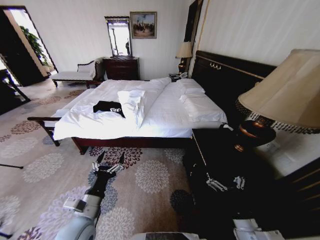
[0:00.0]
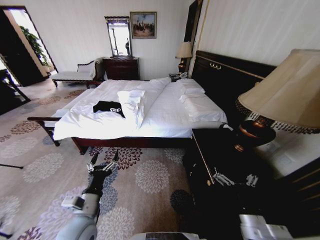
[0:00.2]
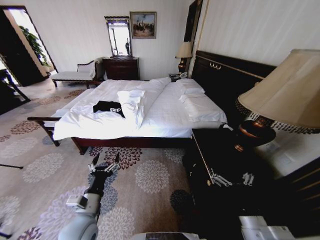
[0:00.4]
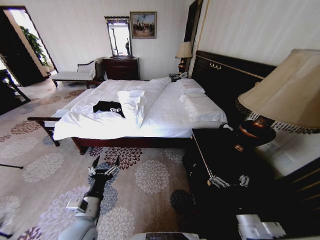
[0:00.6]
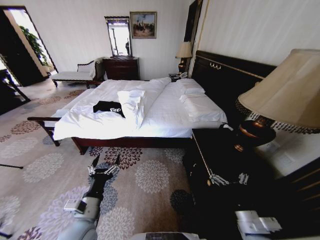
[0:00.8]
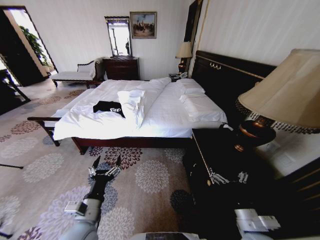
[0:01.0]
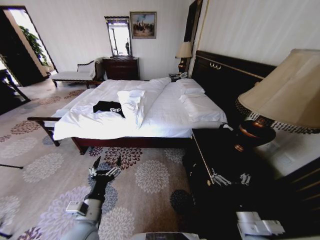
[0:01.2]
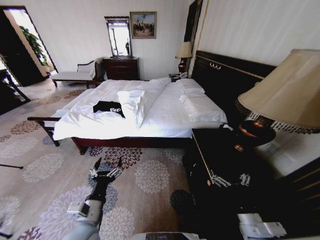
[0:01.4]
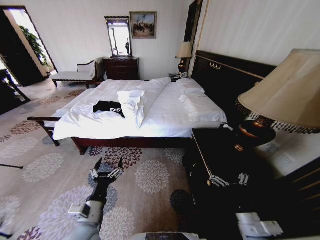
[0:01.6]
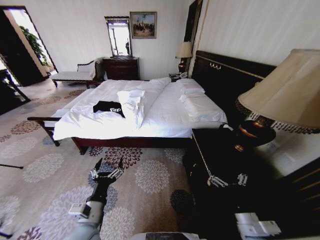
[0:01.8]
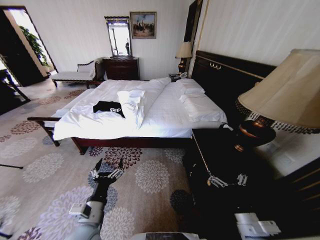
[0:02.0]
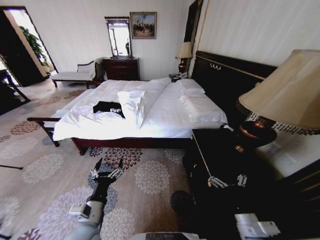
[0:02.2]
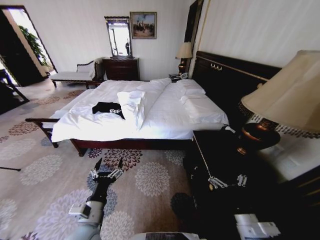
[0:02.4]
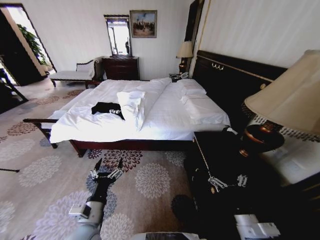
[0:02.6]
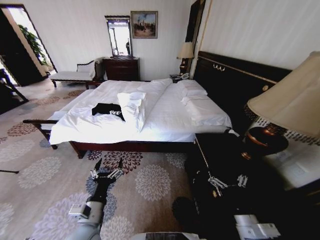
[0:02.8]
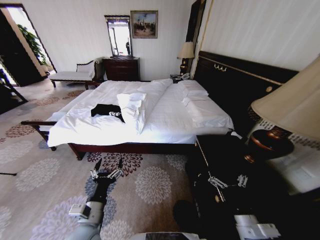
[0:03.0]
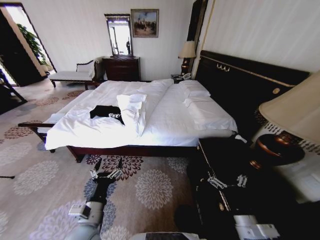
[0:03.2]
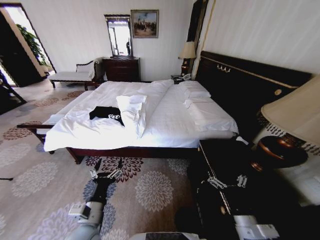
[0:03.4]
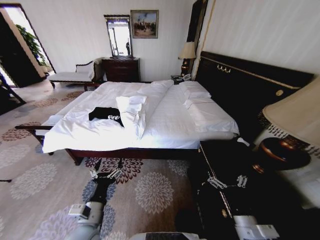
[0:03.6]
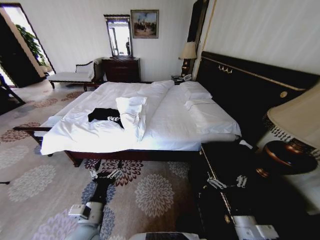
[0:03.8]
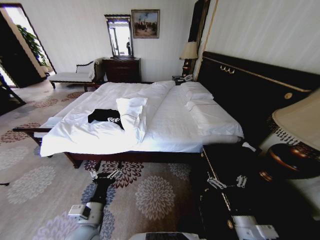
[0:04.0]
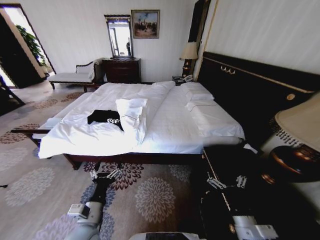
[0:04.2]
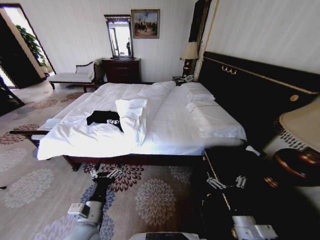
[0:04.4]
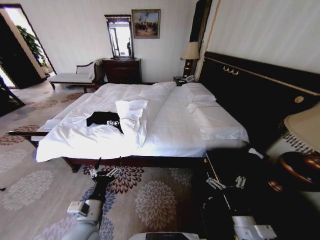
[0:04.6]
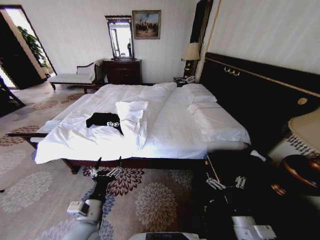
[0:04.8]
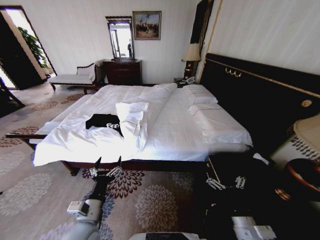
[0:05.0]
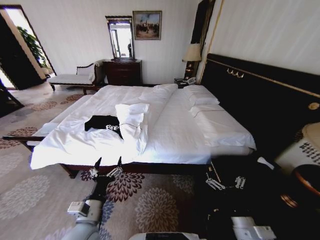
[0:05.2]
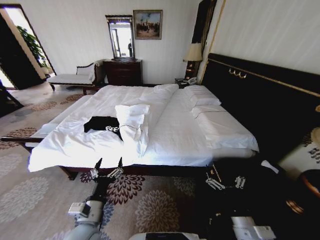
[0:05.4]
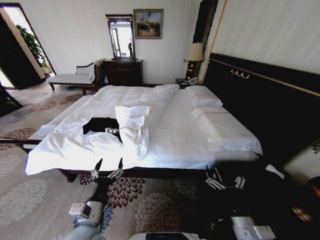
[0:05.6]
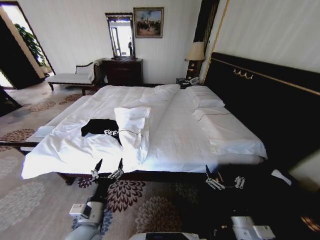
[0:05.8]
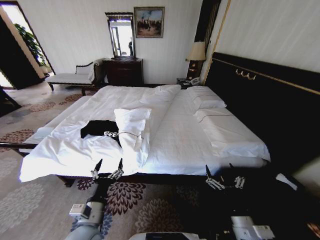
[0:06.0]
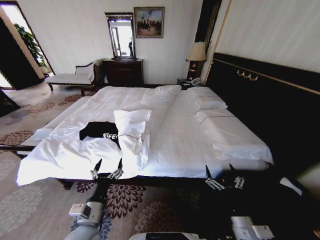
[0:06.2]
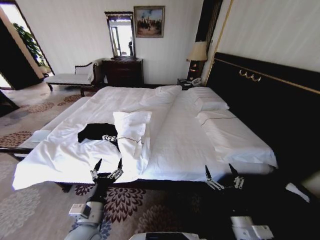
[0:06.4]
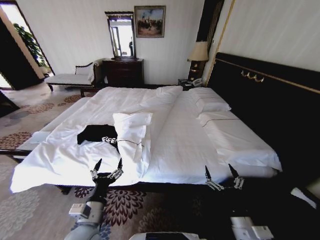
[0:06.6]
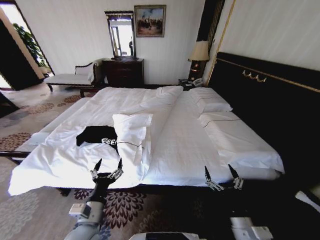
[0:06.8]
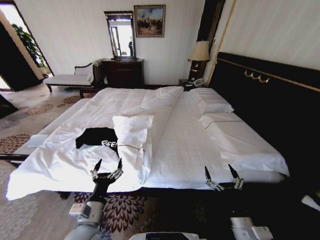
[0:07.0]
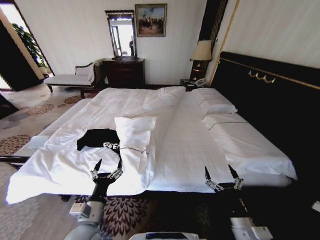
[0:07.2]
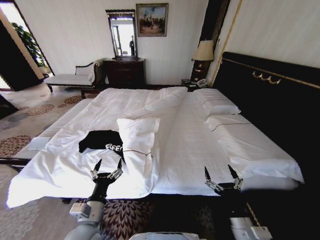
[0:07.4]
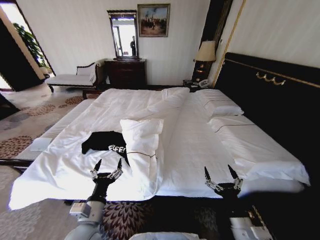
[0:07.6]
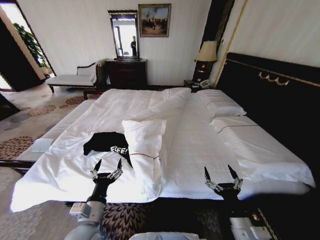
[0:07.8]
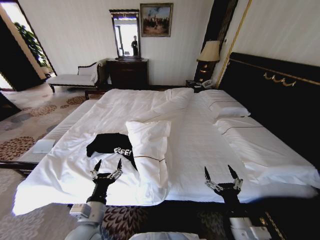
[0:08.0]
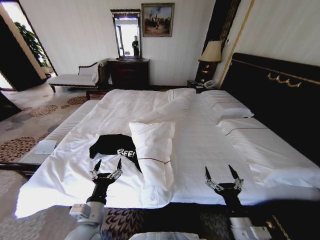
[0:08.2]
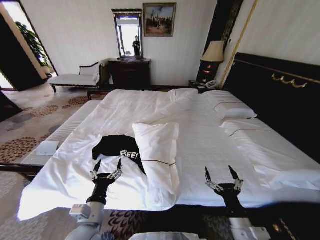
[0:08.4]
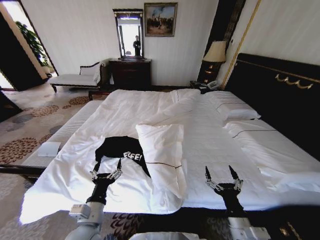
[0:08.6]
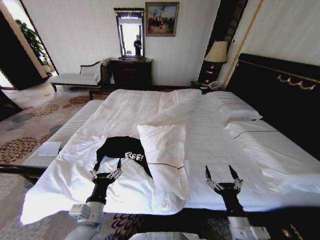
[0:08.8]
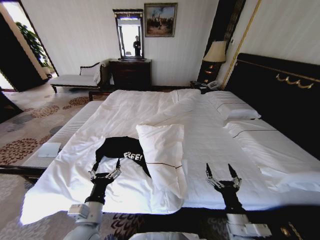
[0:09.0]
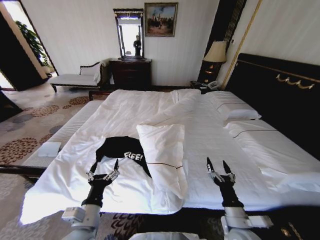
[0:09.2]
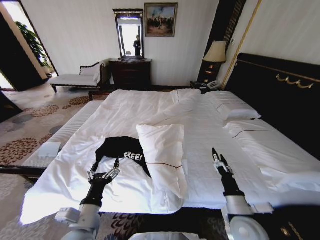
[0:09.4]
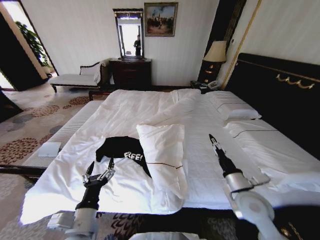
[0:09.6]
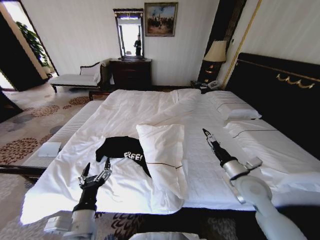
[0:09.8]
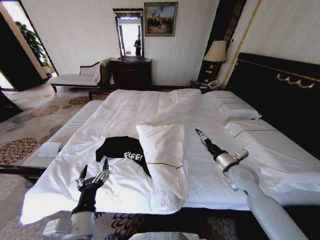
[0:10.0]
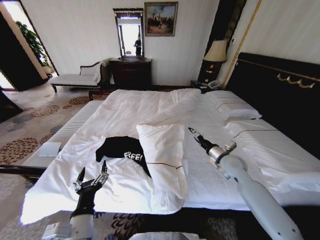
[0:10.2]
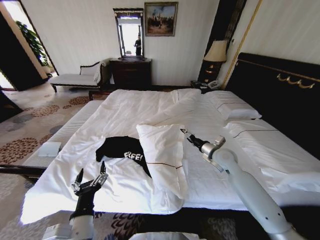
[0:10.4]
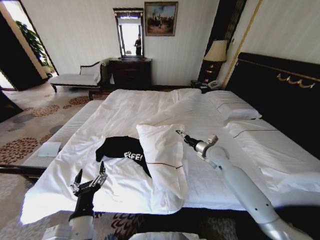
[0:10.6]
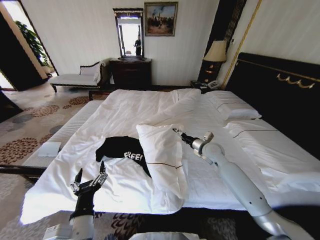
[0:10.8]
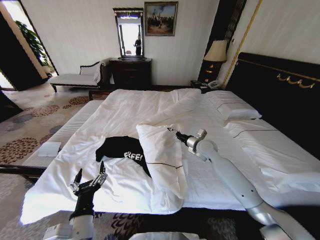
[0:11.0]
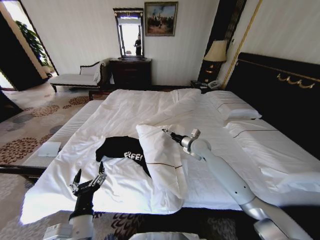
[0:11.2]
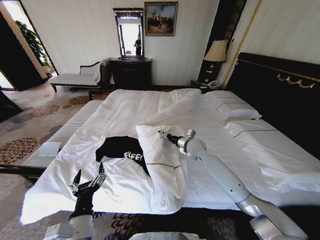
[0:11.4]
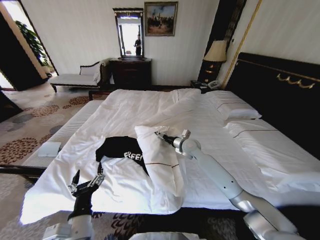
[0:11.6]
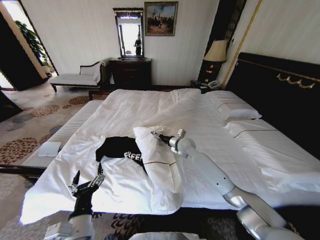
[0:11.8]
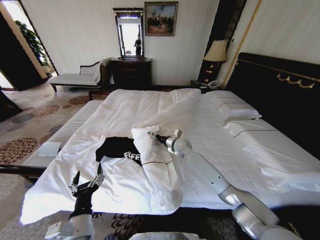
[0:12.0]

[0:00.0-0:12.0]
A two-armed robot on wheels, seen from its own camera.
Task of the whole recording: Fold the clothes on the bed.
0:09.0 to 0:10.4: The right gripper is displaced forward by some 30 cm.
0:10.4 to 0:12.0: The right gripper goes about 20 cm to the left and forward.

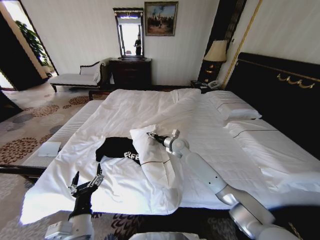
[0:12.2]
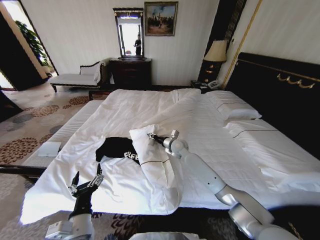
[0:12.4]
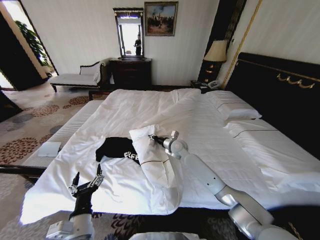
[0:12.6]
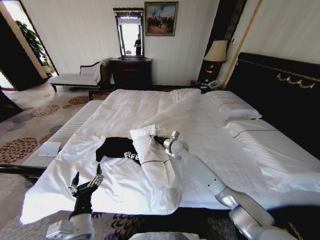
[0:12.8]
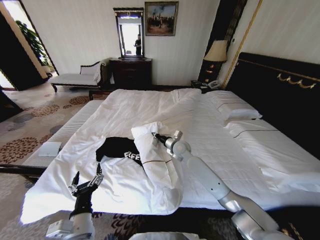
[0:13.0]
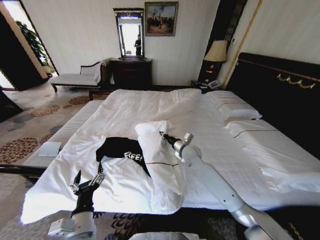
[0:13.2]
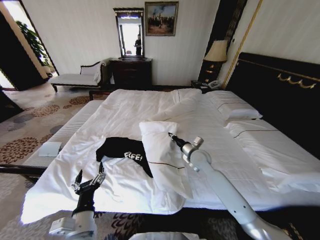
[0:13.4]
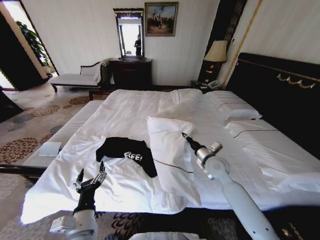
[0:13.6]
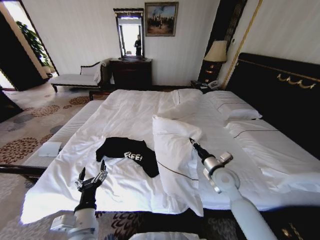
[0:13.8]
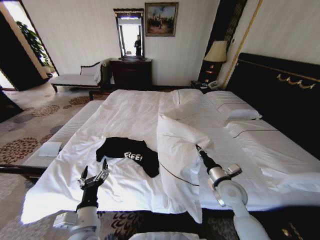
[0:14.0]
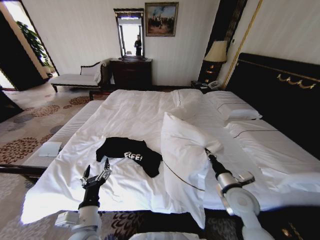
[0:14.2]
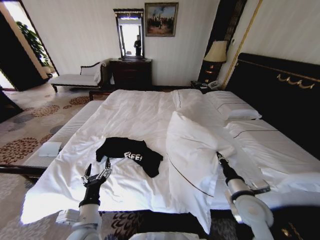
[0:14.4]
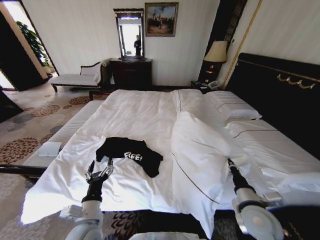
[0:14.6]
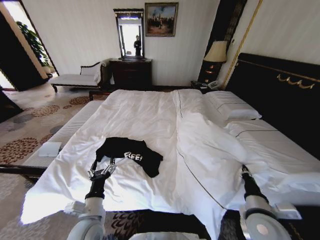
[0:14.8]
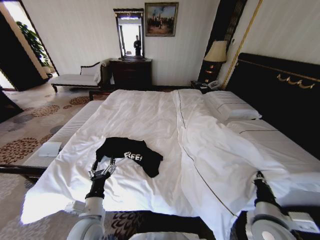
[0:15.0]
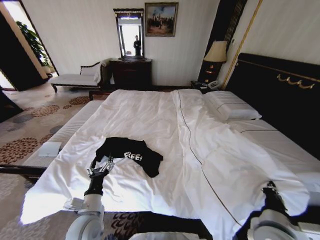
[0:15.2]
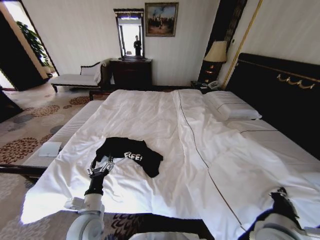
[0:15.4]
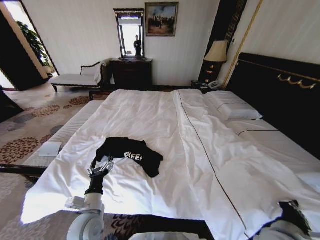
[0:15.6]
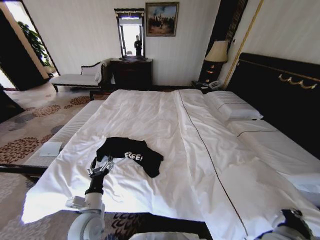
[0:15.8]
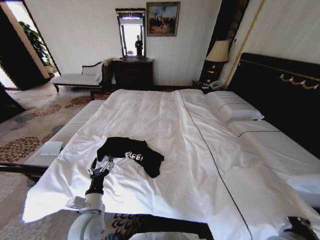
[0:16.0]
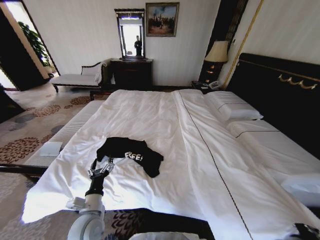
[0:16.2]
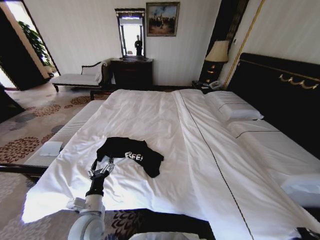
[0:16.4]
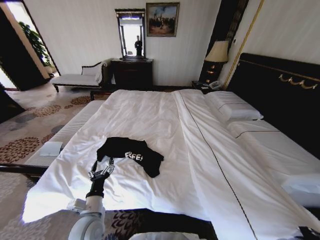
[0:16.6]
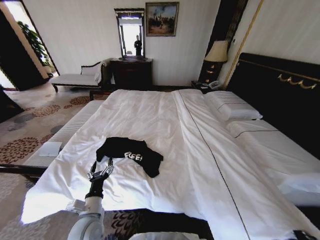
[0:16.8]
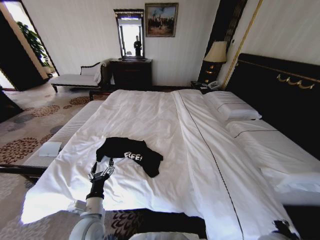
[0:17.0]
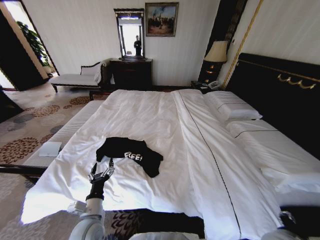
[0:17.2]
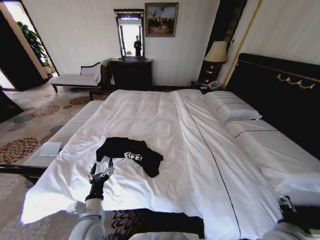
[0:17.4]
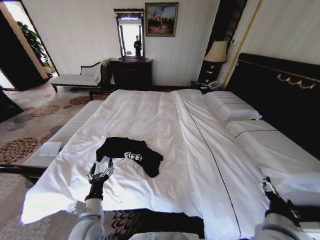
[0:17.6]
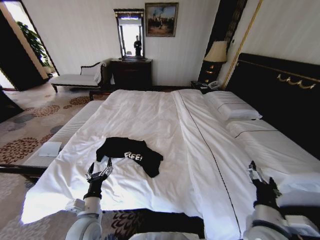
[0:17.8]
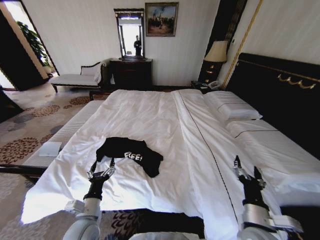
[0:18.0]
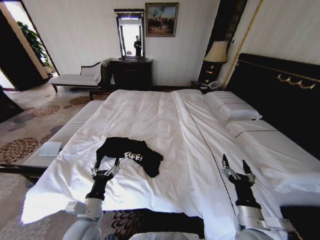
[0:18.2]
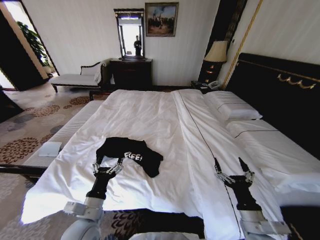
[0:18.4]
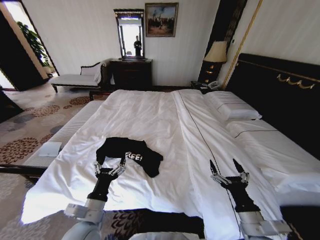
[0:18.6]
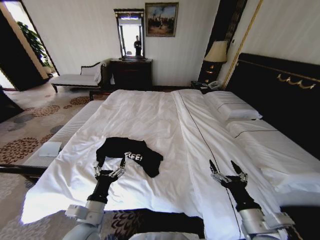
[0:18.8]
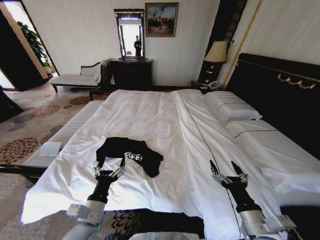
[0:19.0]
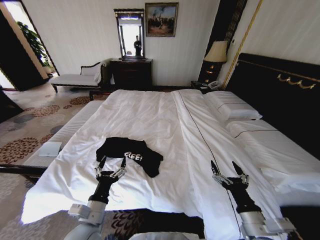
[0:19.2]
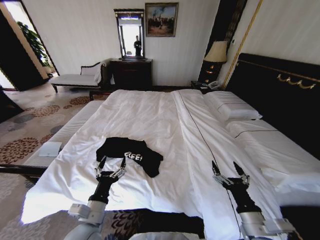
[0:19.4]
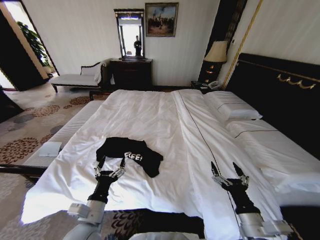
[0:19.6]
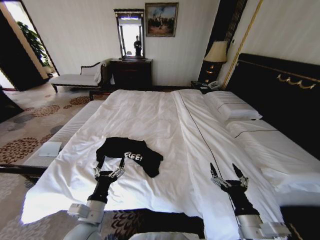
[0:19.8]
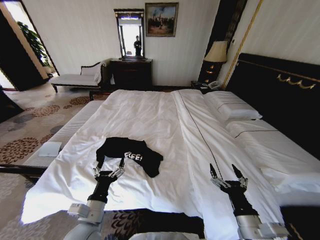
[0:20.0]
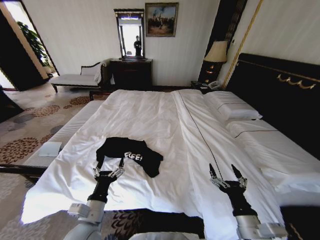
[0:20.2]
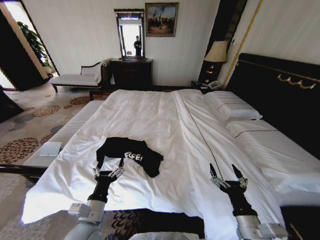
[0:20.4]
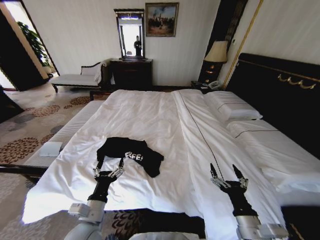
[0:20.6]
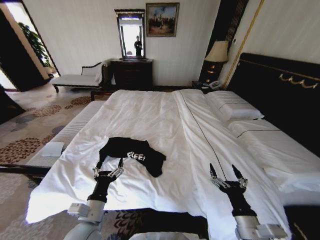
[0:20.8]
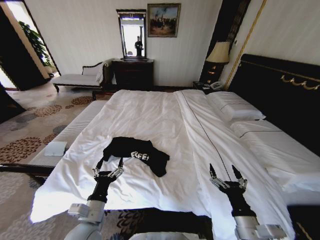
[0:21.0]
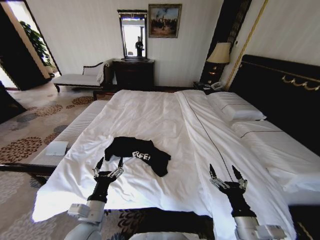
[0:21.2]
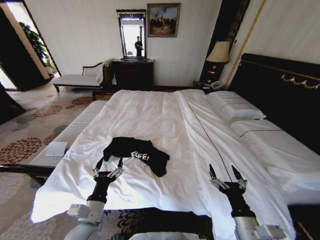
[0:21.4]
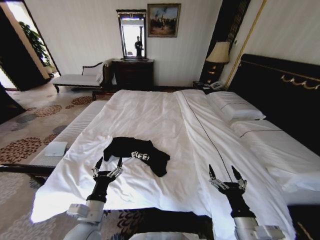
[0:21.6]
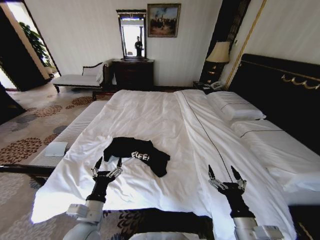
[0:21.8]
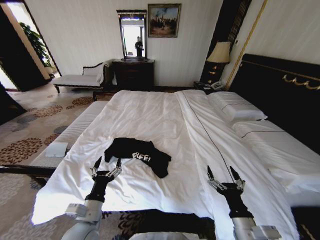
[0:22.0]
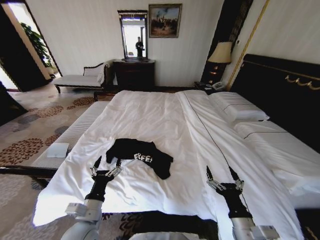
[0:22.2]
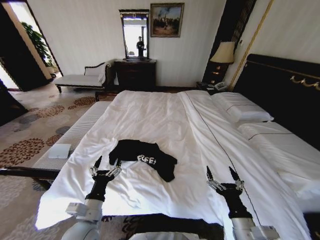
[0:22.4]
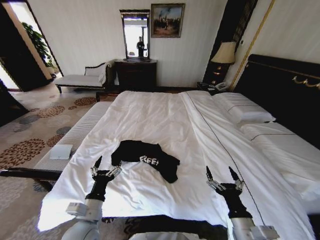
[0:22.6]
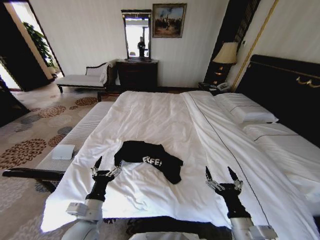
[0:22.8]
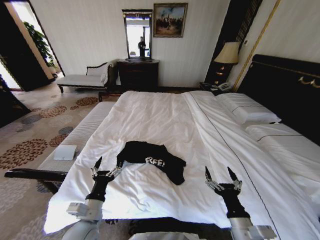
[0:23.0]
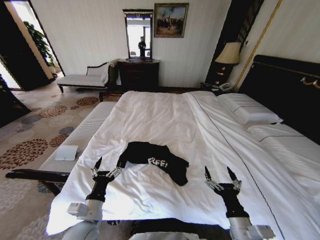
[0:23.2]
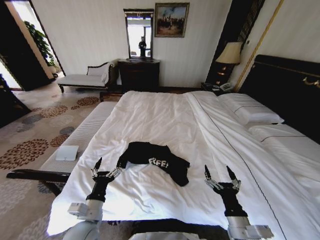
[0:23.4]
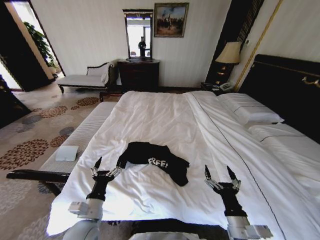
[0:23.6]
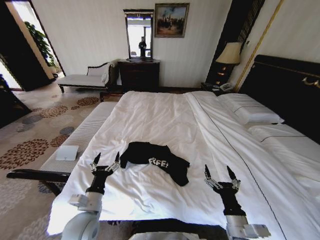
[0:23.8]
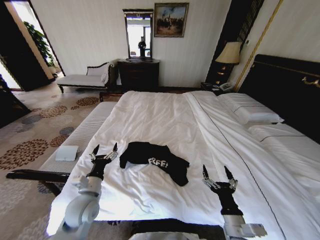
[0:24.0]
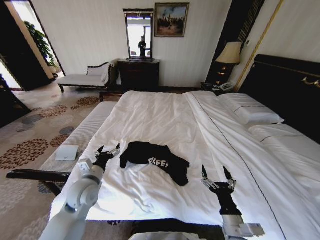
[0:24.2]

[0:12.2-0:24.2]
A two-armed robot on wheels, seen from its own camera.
Task of the whole recording: Fold the clothes on the bed.
0:12.2 to 0:13.8: The right gripper is displaced backward and to the right by approximately 25 cm, and closes its fingers.
0:13.8 to 0:15.2: The right gripper goes about 20 cm backward. The left gripper goes about 5 cm forward.
0:15.2 to 0:16.6: The right gripper shifts approximately 10 cm to the right and downward.
0:16.6 to 0:18.2: The right gripper is displaced to the left by about 10 cm, and opens up.
0:22.6 to 0:24.2: The left gripper goes approximately 10 cm forward.
